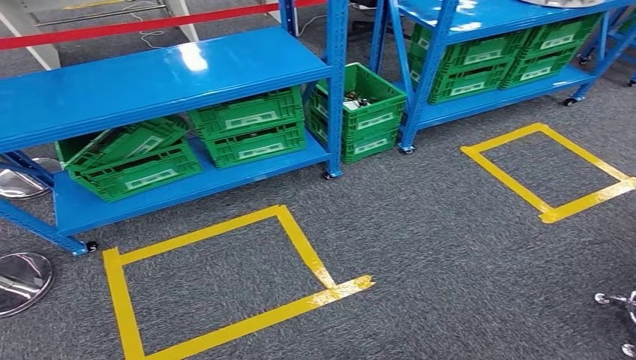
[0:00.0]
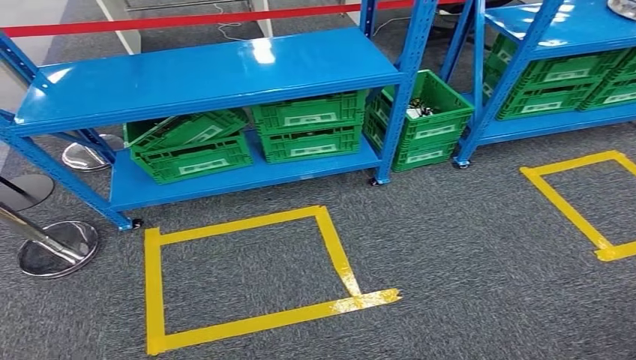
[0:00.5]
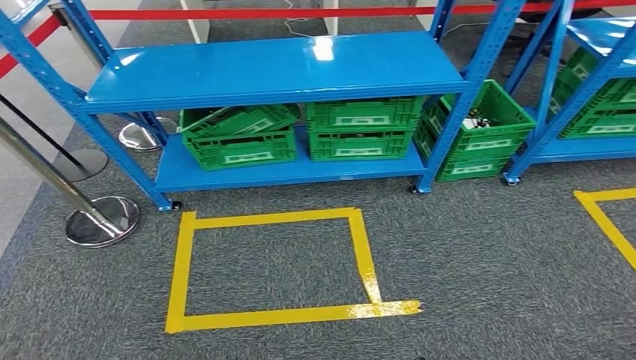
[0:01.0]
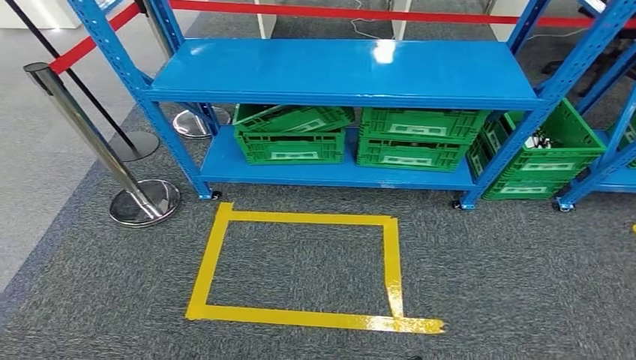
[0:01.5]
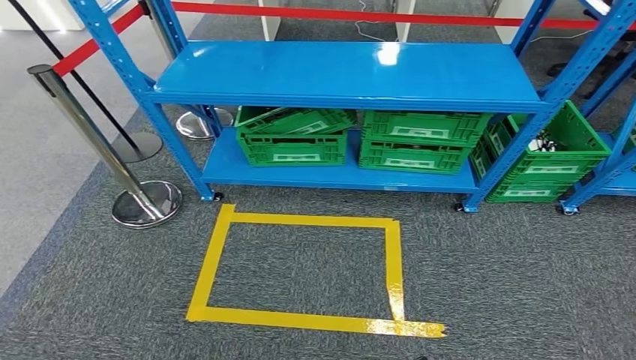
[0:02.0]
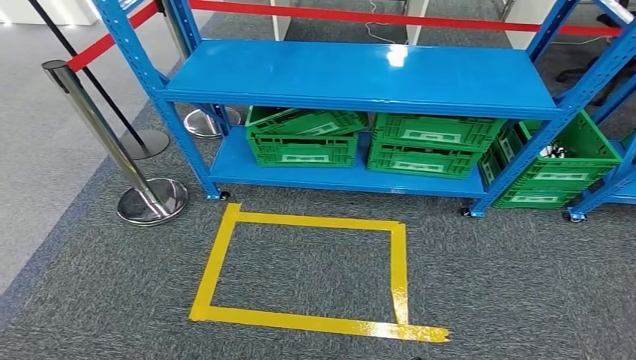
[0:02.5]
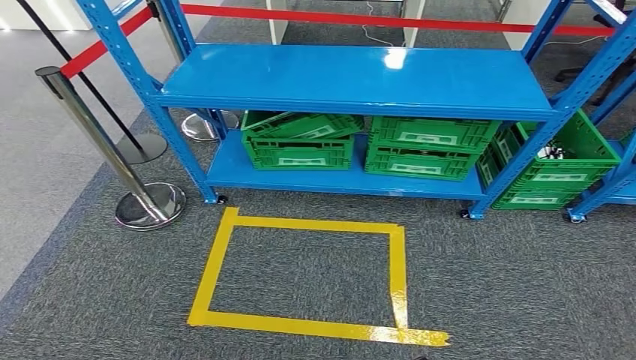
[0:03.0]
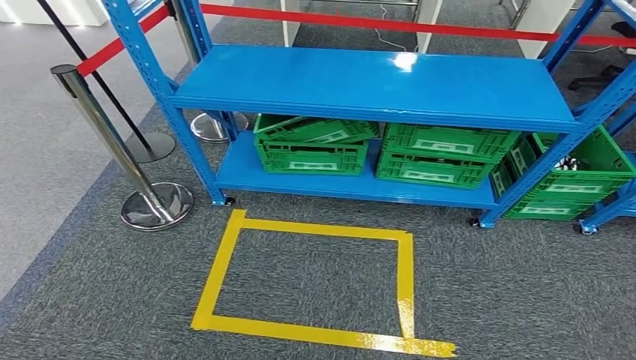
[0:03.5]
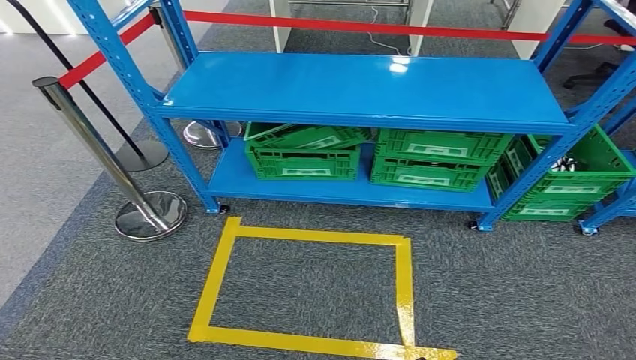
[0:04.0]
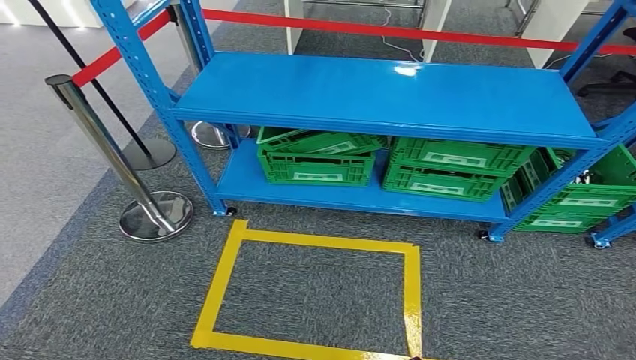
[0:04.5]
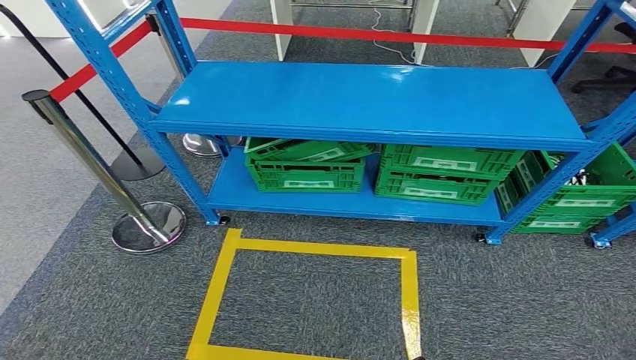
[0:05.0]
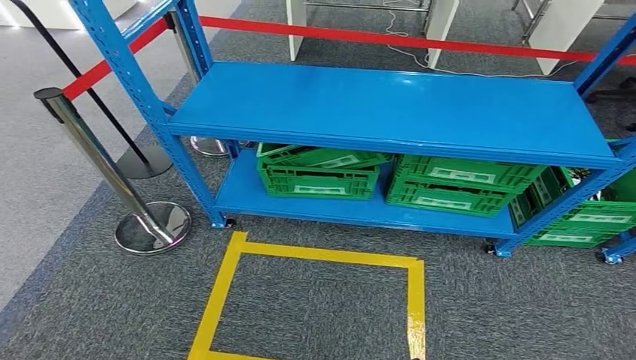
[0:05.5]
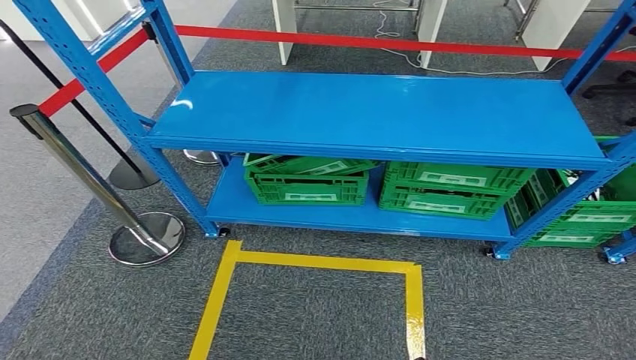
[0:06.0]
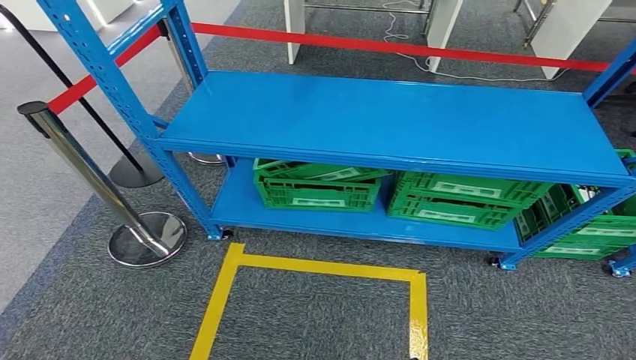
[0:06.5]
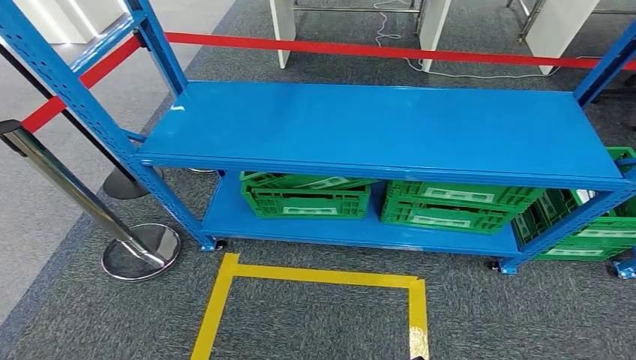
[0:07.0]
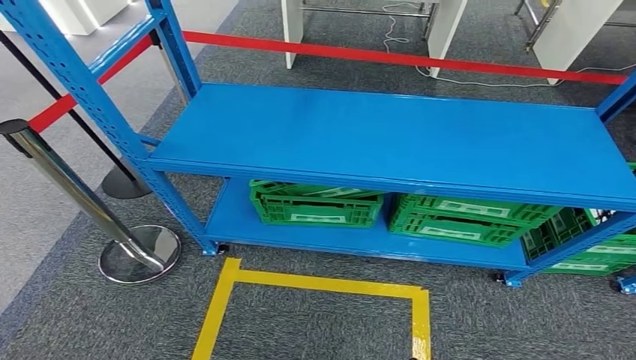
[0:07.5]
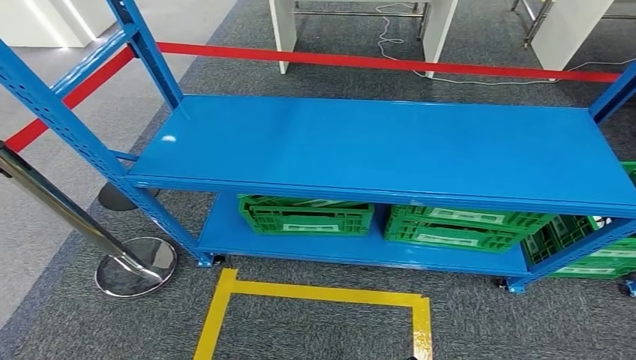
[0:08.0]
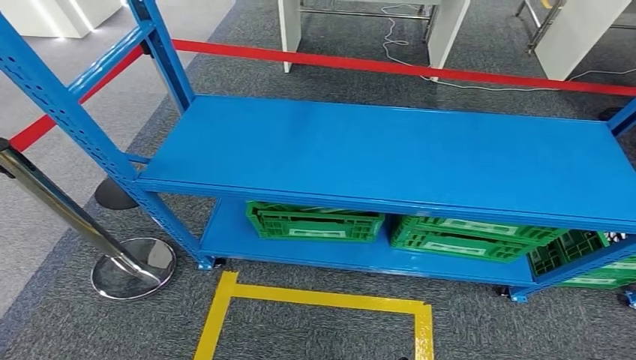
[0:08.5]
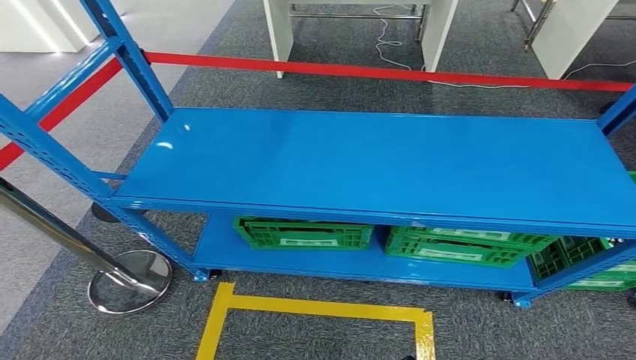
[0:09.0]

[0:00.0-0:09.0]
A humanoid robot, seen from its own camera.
Step, 0:00.0 to 0:05.5: Insert the small component into the corresponding slot on the workbench.

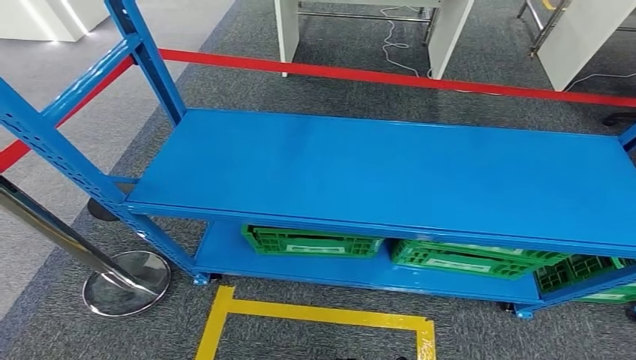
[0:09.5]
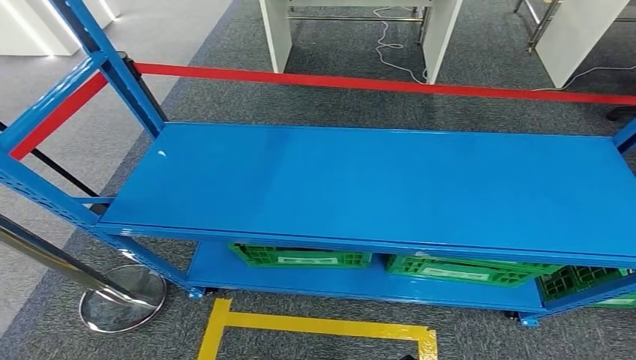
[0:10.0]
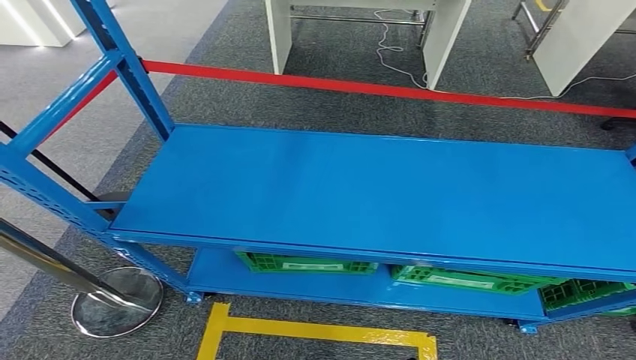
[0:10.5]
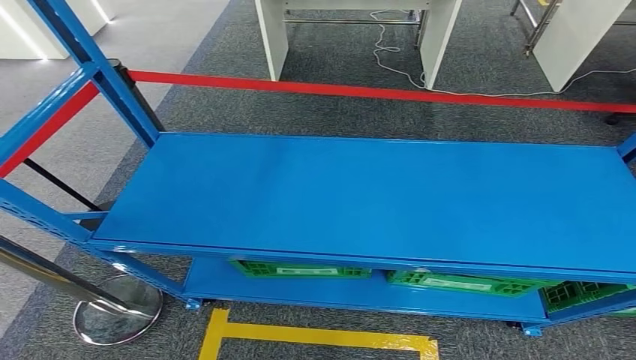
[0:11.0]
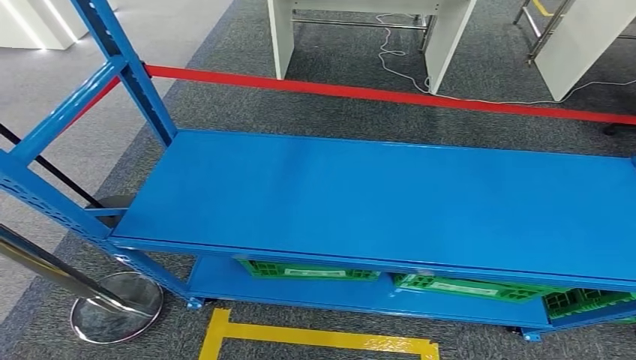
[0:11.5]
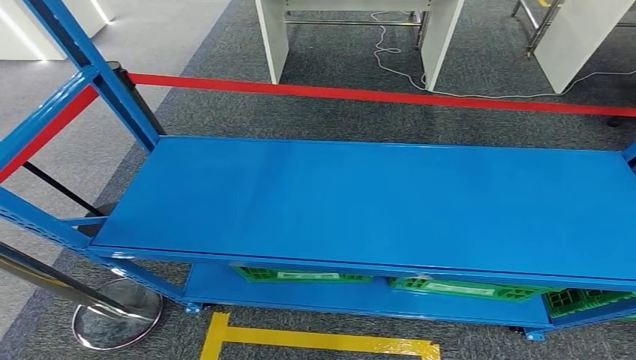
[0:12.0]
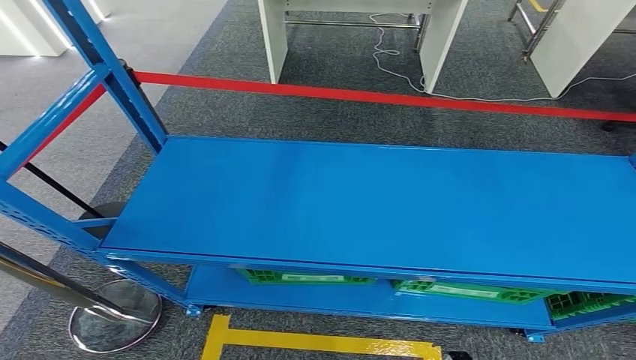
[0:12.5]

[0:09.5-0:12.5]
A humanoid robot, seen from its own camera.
Step, 0:09.5 to 0:12.5: Move to the initial position at the workbench.
0:11.0 to 0:12.5: The left hand shifts about 5 cm backward.
